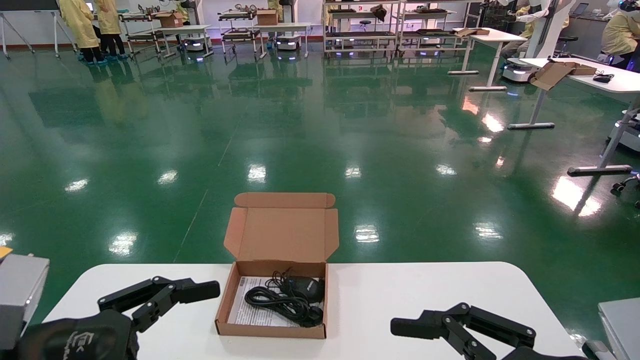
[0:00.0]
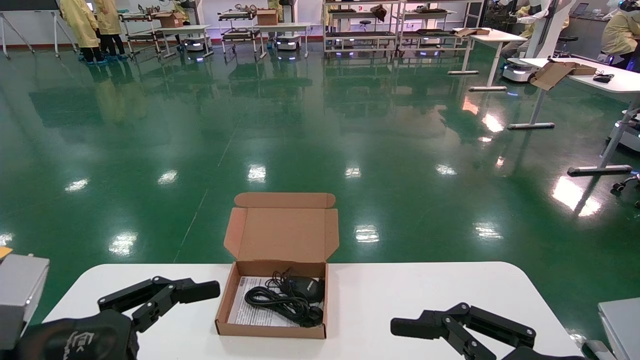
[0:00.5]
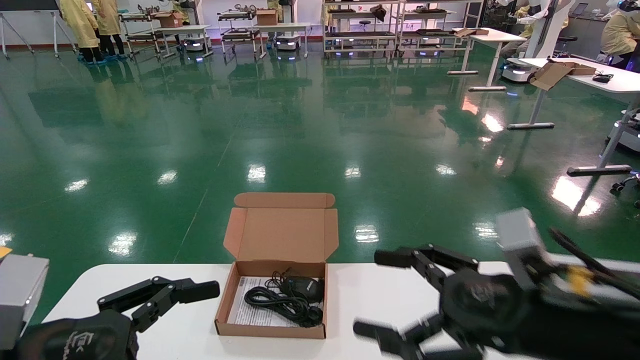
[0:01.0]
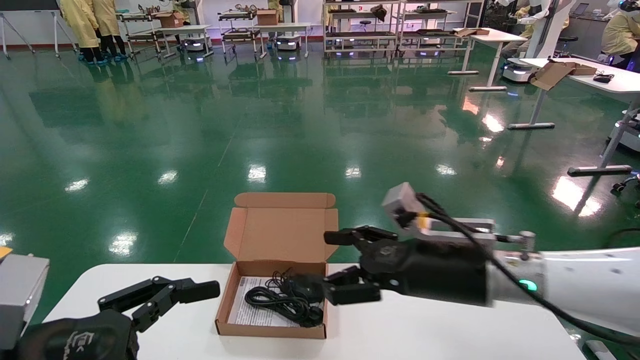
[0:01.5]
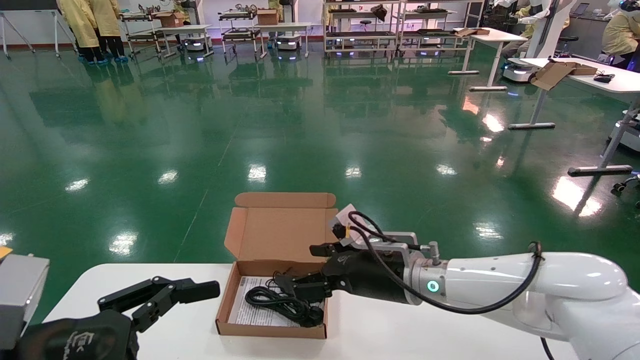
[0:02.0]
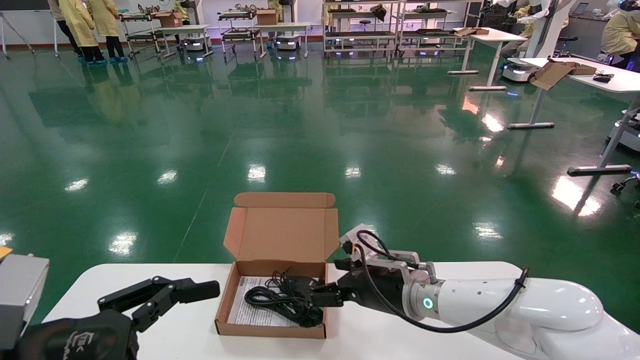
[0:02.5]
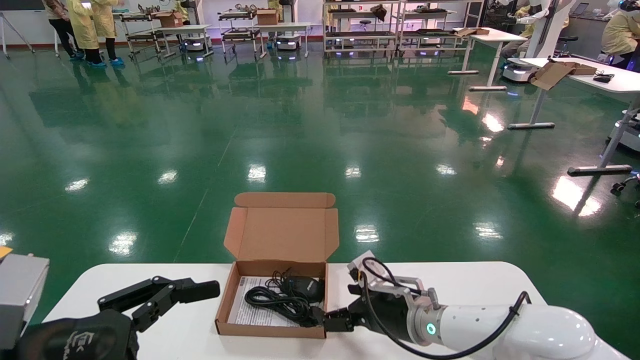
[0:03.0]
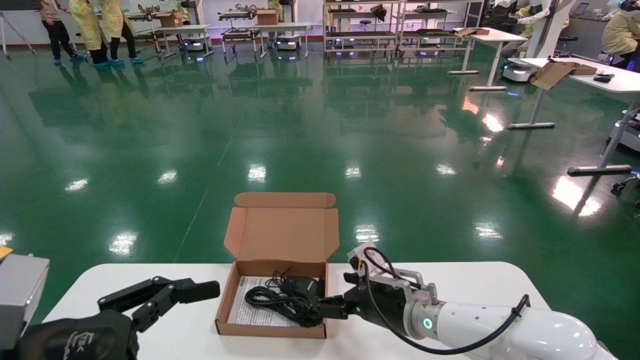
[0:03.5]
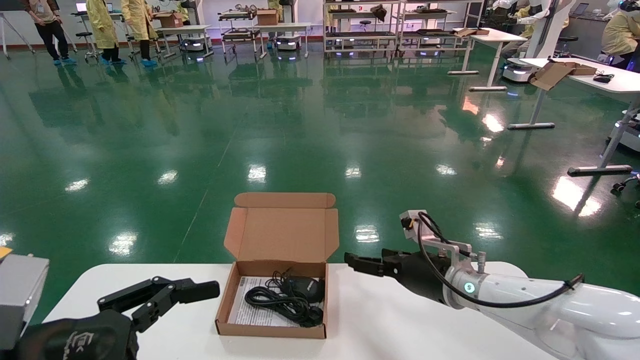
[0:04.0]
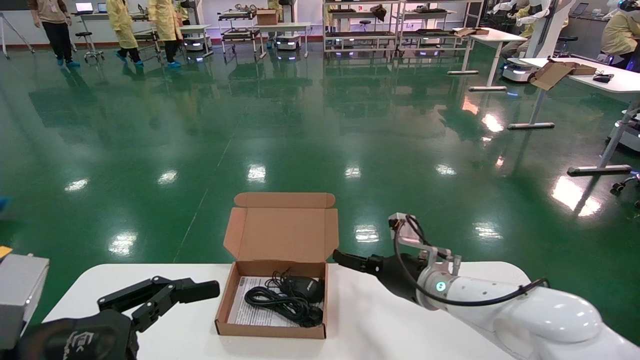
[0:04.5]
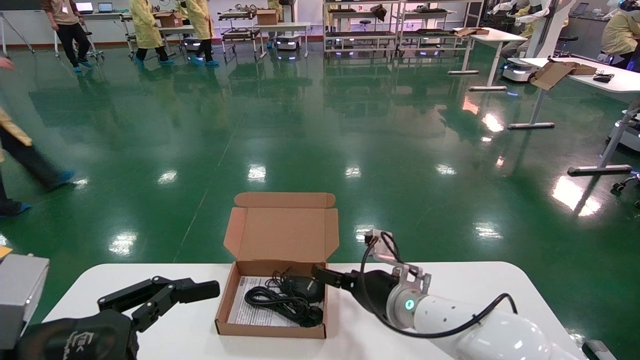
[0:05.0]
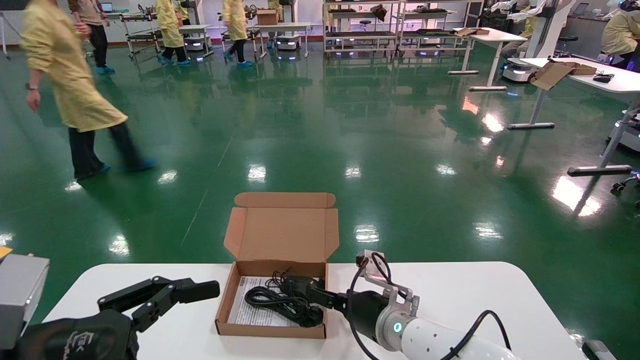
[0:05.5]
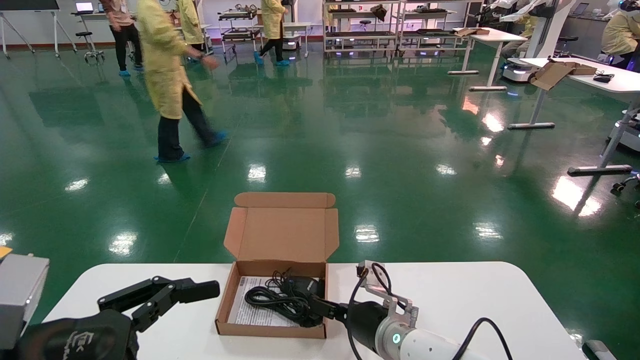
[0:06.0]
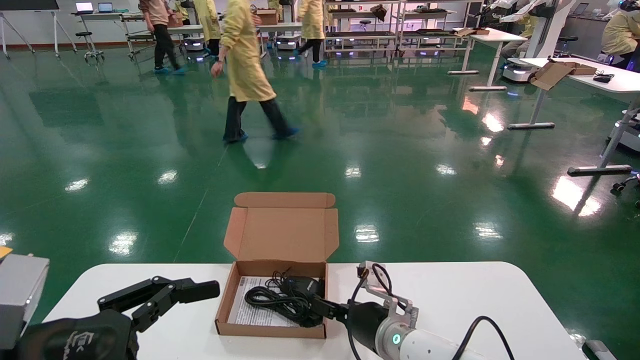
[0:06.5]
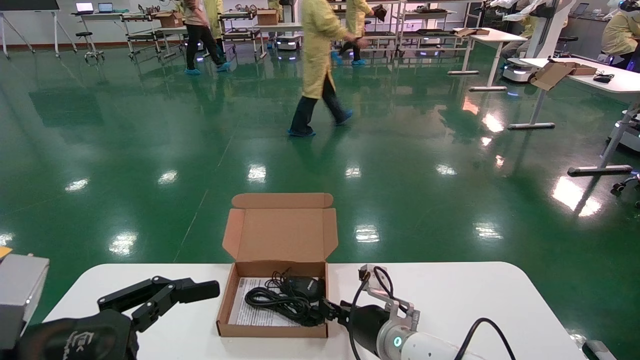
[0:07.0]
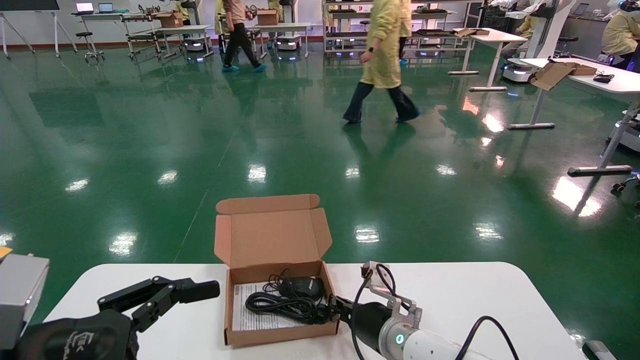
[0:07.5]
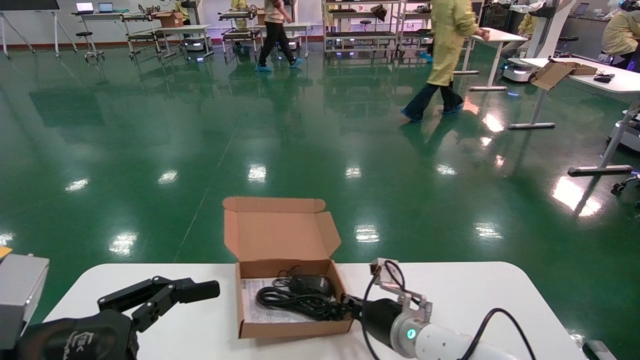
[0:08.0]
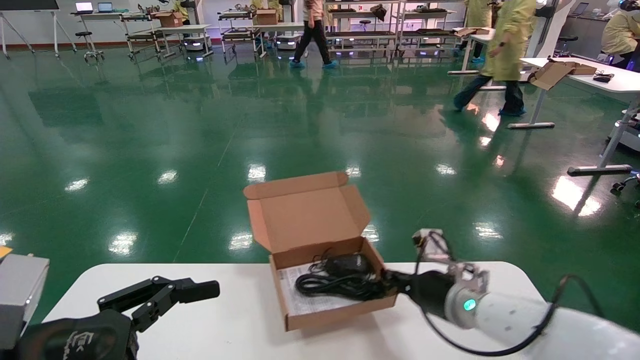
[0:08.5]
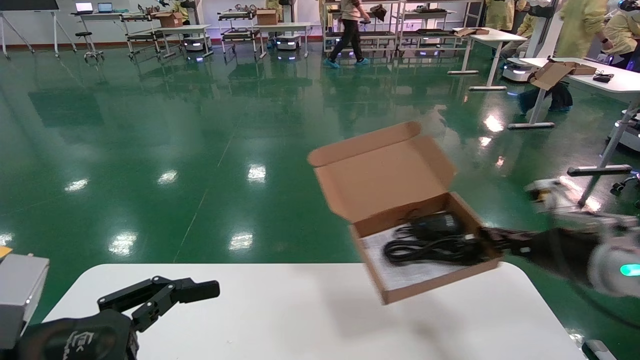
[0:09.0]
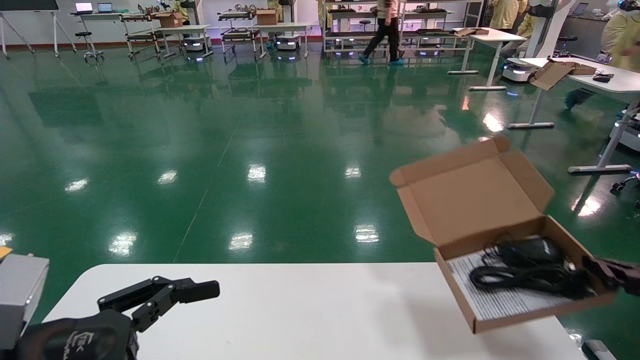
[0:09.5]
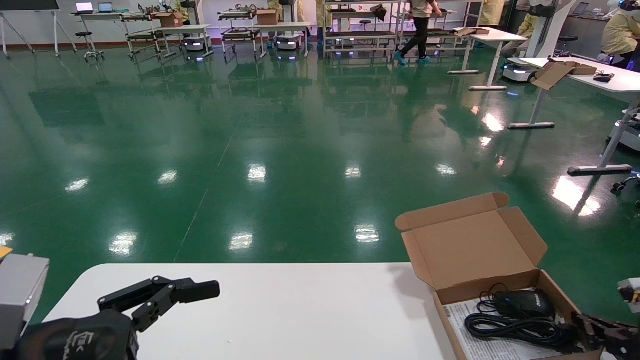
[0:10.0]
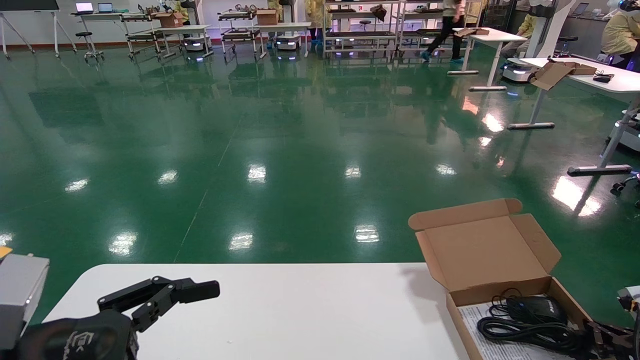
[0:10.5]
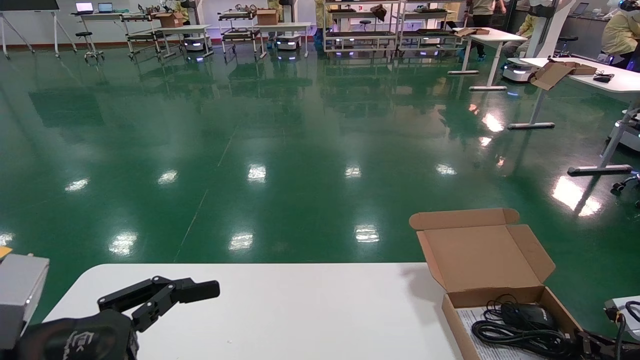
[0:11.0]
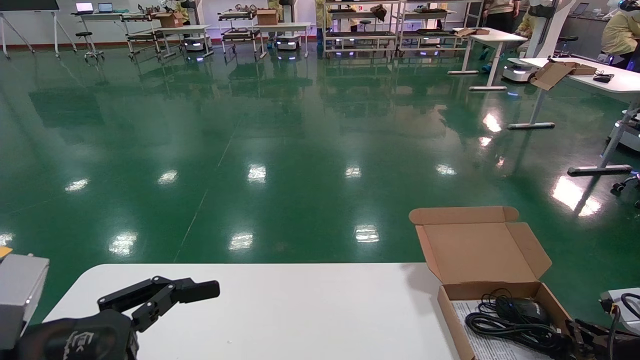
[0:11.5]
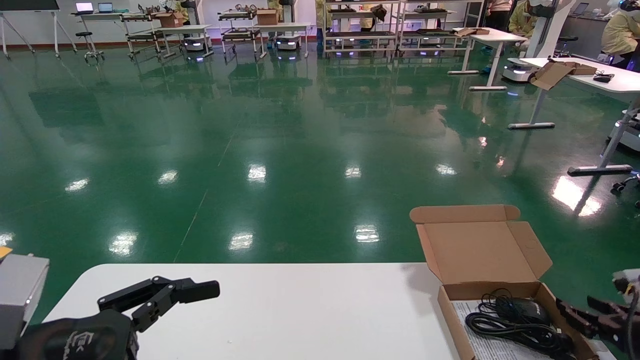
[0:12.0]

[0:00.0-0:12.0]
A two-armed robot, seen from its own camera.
Task of the whole recording: move the position of the storage box with accessories on the table.
Step, 0:01.0 to 0:07.0: Grab and pick up the open mouse box from the accessory packaging area.
0:00.0 to 0:02.0: The right gripper goes some 30 cm forward and to the left.
0:02.0 to 0:04.0: The right gripper is displaced to the right by roughly 5 cm.
0:04.0 to 0:06.0: The right gripper heads to the left and downward, covering approximately 10 cm.
0:06.0 to 0:08.0: The right gripper closes up.
0:08.0 to 0:10.0: The right gripper travels to the right by roughly 35 cm.
0:10.0 to 0:12.0: The grippers move only a little.

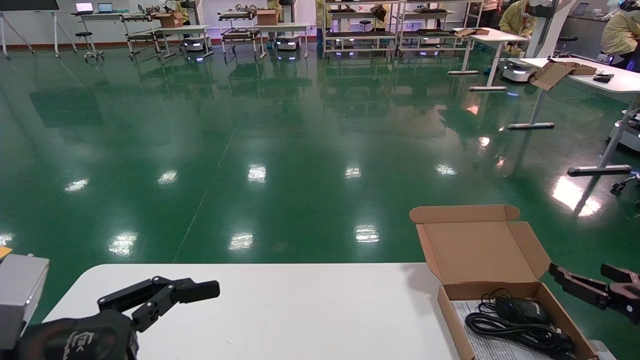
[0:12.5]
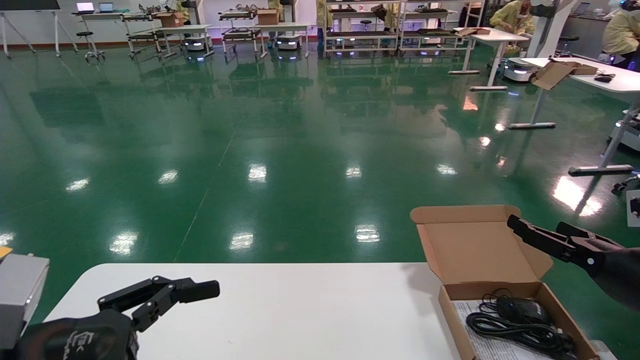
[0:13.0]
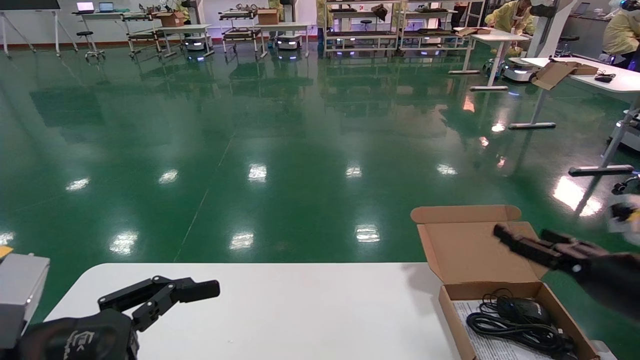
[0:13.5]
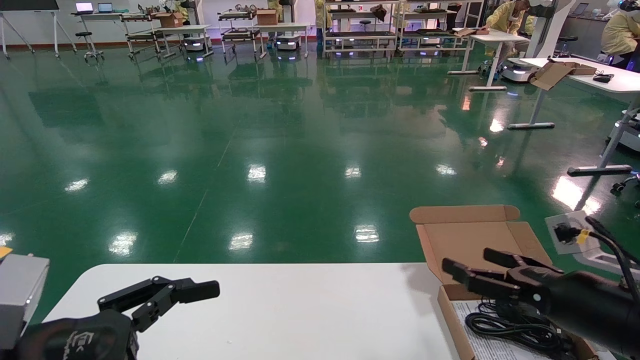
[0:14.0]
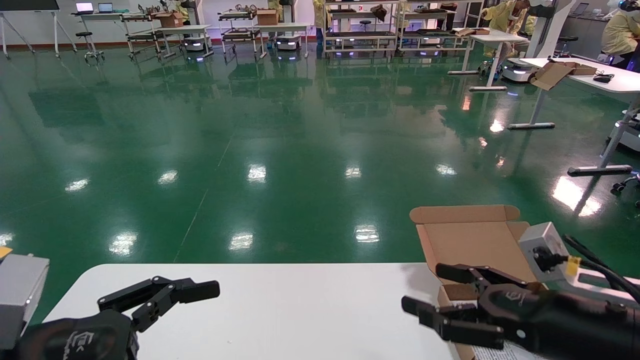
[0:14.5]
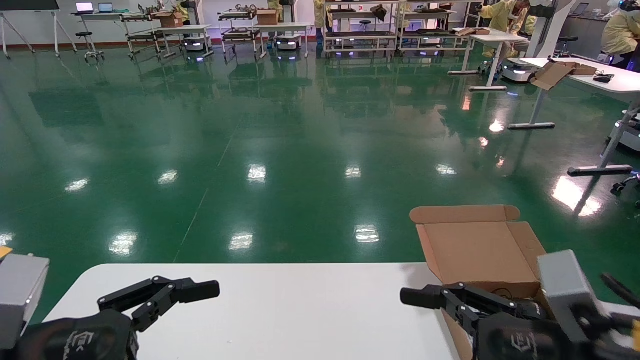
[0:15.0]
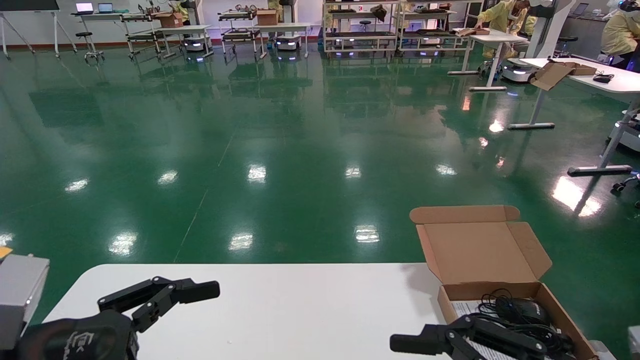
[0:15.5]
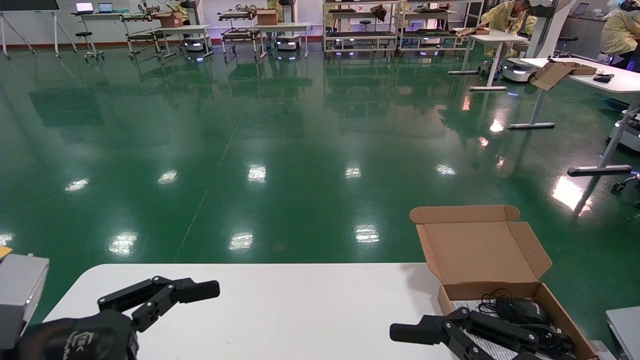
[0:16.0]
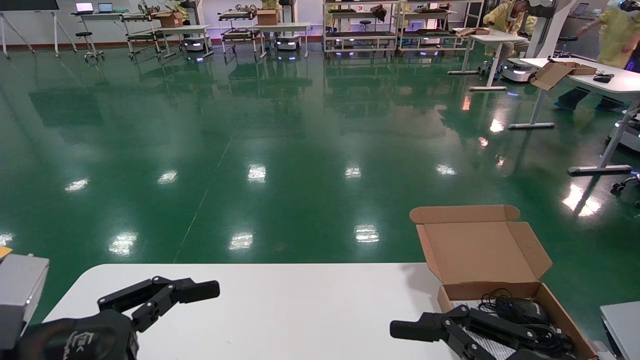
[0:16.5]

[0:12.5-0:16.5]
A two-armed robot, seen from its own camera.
Task of the whole recording: move the position of the storage box with accessories on the table.
0:12.5 to 0:14.5: The right gripper shifts some 15 cm to the left and backward.
0:14.5 to 0:16.5: The right gripper is displaced backward by roughly 10 cm.
